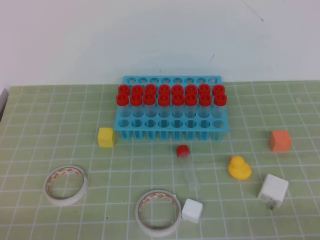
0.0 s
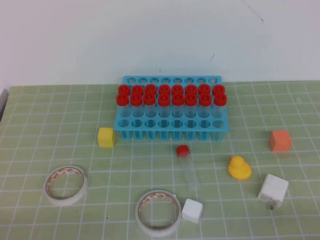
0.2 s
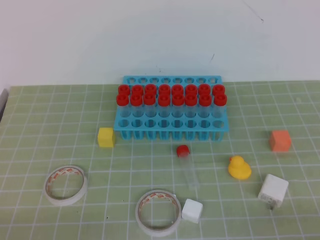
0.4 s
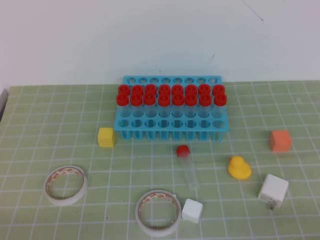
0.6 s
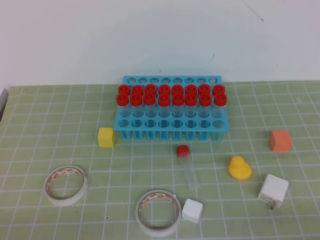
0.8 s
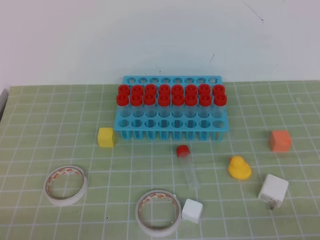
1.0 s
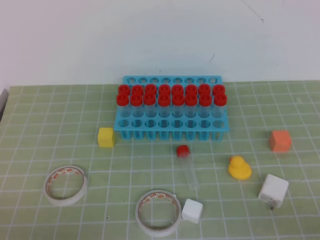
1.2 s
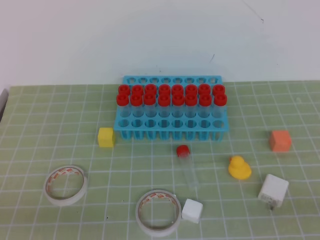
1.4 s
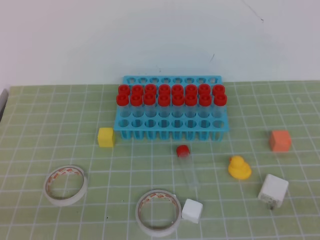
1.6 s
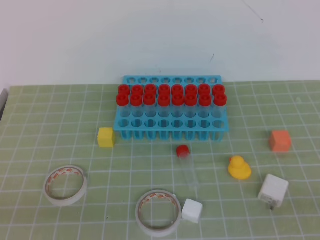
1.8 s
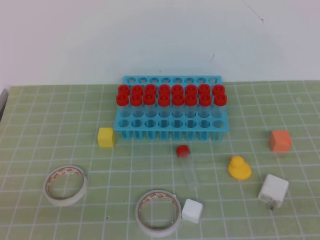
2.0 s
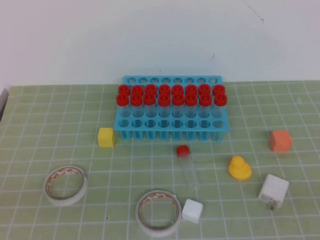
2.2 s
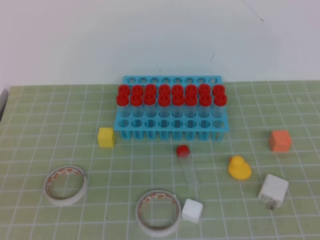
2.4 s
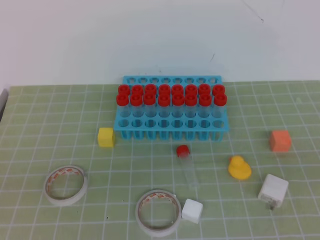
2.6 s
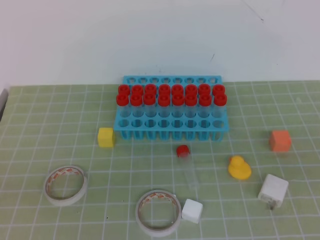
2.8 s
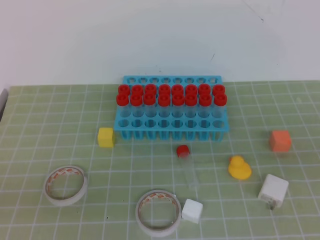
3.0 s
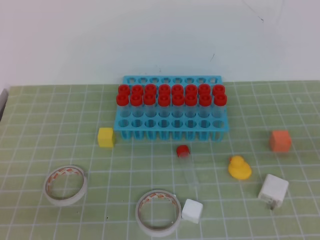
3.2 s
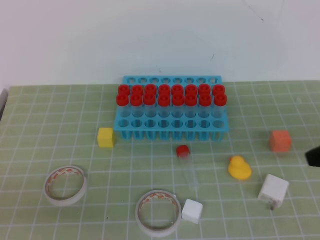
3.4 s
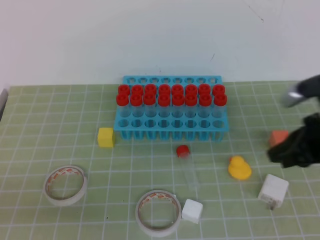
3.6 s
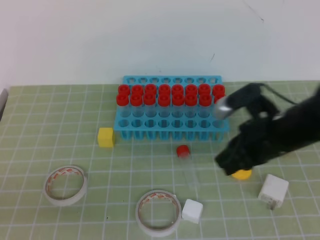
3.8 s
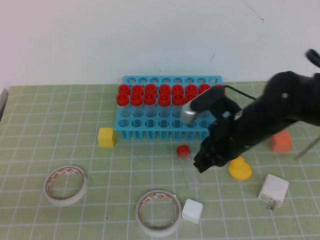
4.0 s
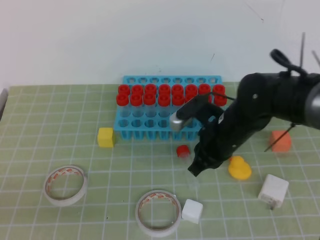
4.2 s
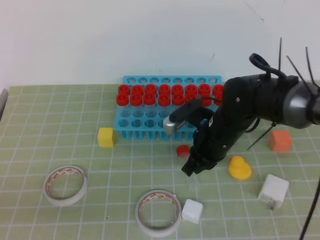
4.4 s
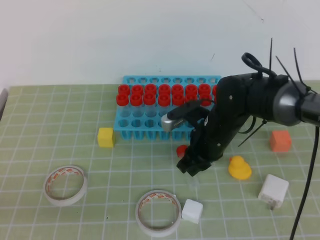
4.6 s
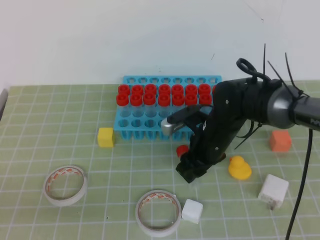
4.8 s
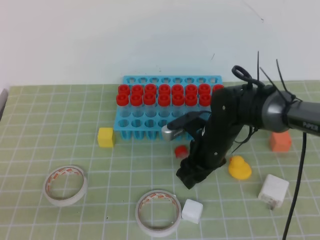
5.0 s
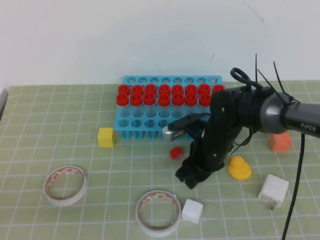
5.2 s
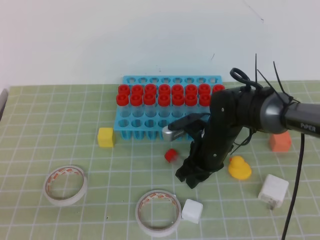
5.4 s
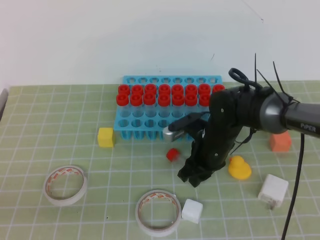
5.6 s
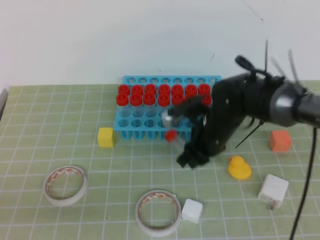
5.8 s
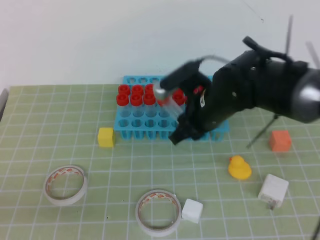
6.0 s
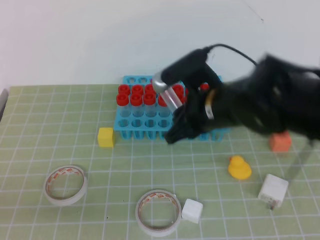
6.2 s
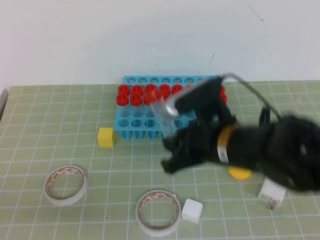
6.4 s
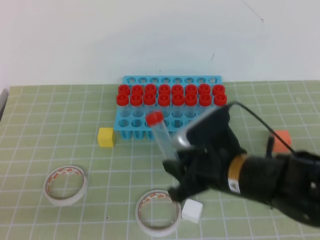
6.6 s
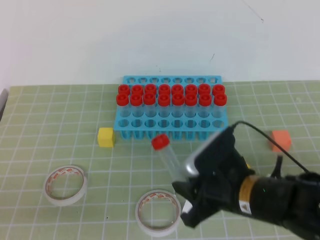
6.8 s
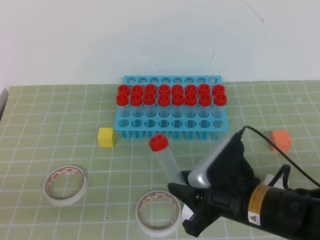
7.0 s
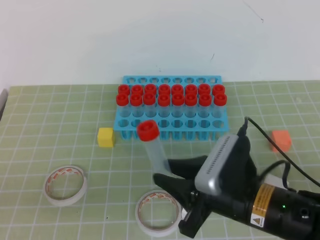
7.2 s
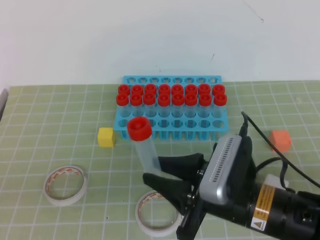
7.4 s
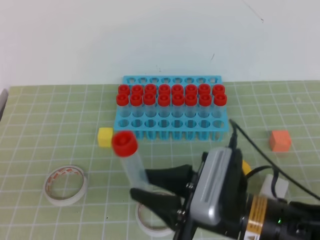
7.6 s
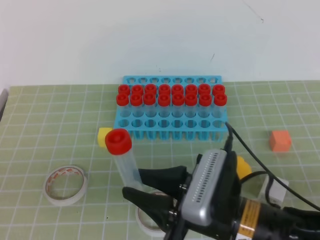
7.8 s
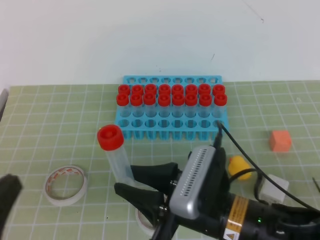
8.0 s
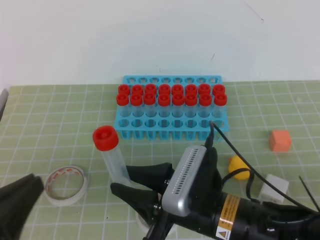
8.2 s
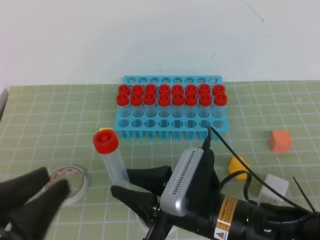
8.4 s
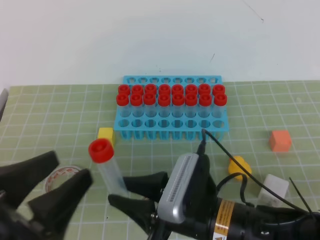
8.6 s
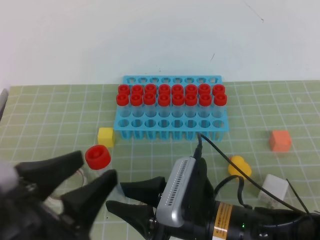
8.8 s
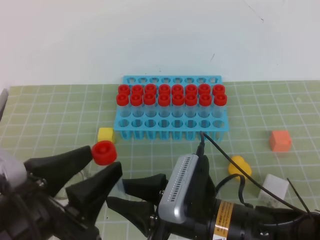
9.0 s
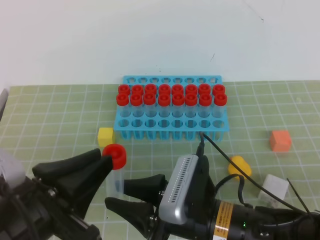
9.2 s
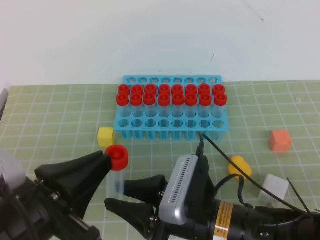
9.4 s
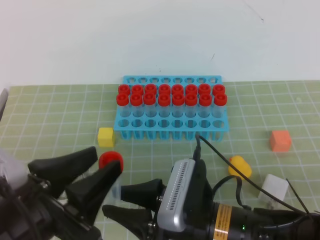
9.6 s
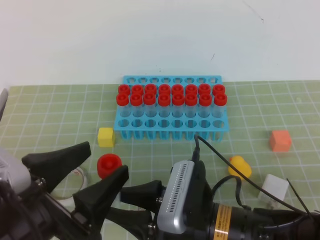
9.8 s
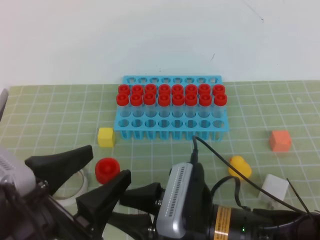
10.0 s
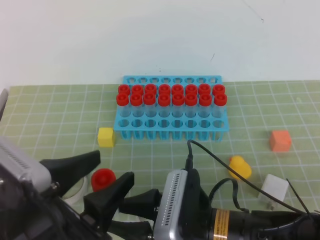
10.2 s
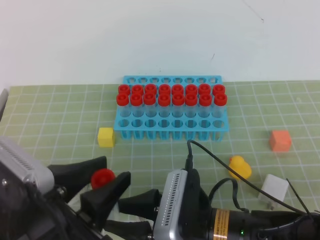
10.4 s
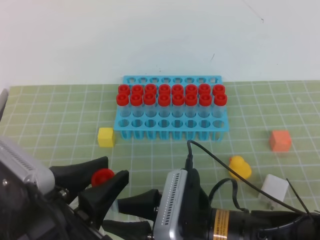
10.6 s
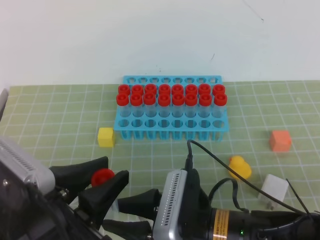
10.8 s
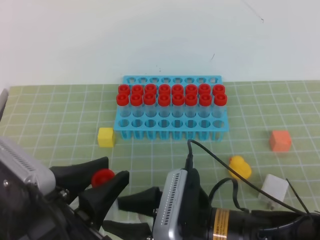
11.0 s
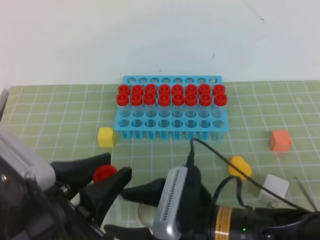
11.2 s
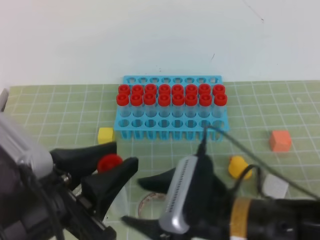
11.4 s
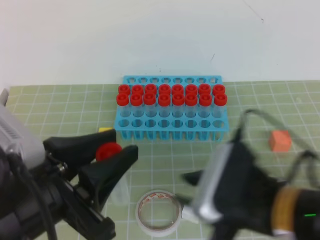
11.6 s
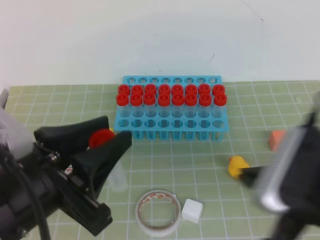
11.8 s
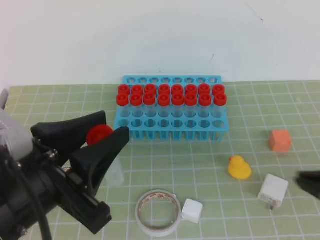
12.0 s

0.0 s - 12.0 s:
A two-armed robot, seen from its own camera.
3.0 s - 4.4 s: The right gripper is displaced forward, to the left and downward by about 35 cm.
4.4 s - 6.0 s: The right gripper opens.
6.0 s - 7.6 s: The right gripper travels backward by some 20 cm.
7.6 s - 9.0 s: The left gripper shifts approximately 10 cm to the right and forward, and opens up.
9.0 s - 10.4 s: The left gripper closes and opens again.
10.4 s - 12.0 s: The right gripper travels to the right and upward by roughly 20 cm, and closes its fingers; the left gripper is displaced upward by approximately 5 cm.

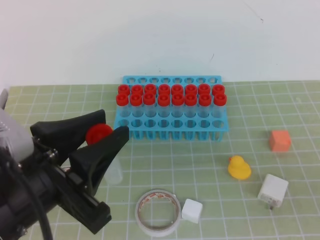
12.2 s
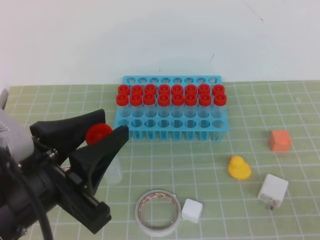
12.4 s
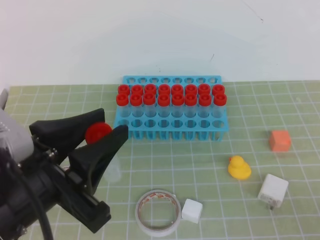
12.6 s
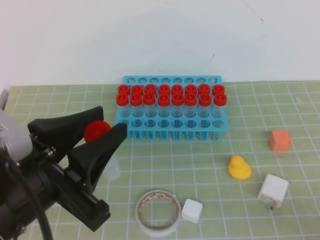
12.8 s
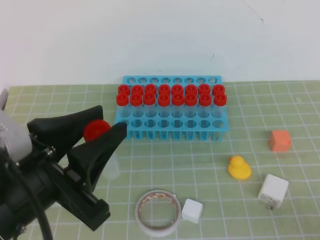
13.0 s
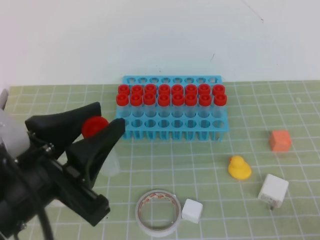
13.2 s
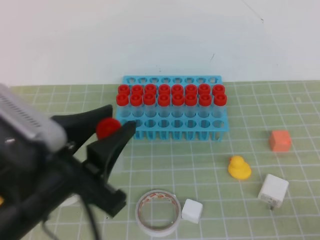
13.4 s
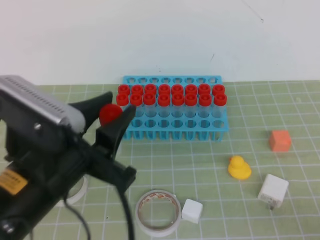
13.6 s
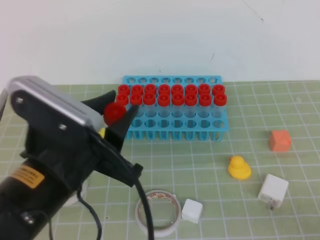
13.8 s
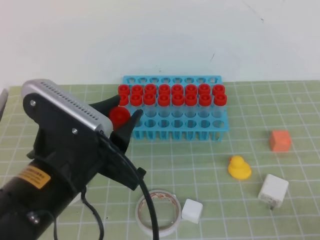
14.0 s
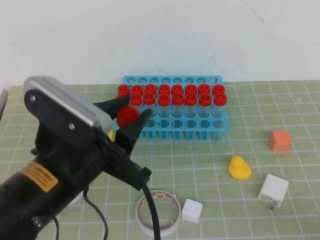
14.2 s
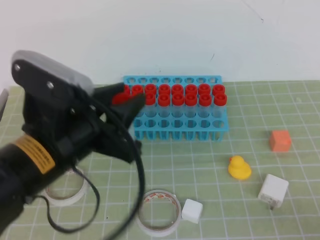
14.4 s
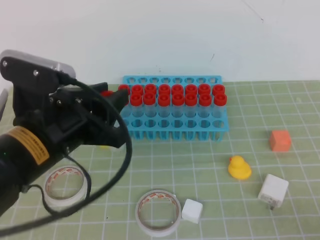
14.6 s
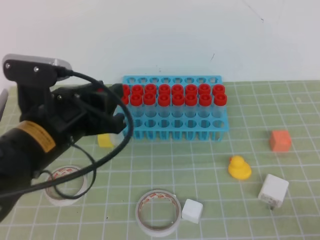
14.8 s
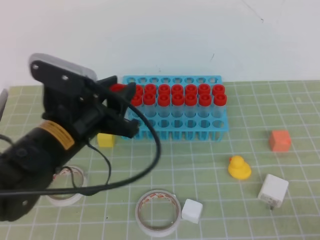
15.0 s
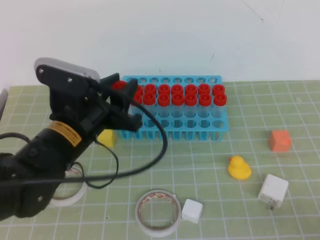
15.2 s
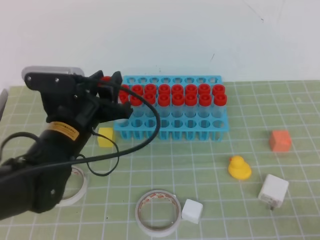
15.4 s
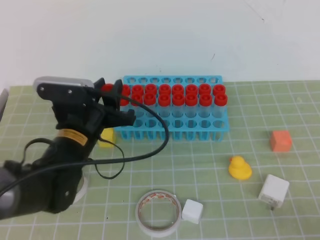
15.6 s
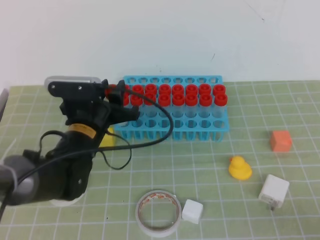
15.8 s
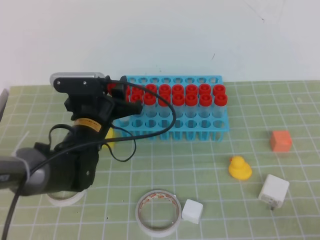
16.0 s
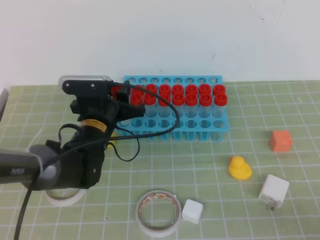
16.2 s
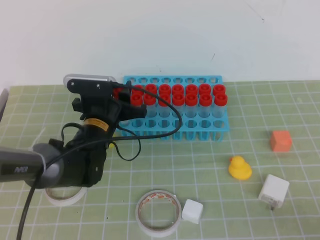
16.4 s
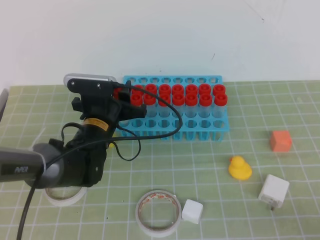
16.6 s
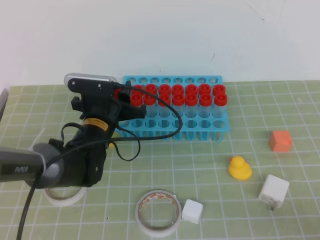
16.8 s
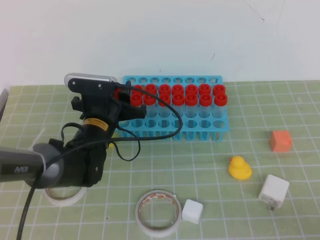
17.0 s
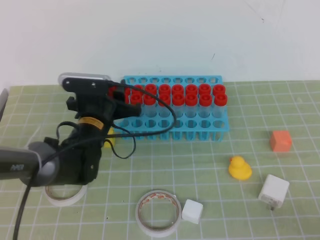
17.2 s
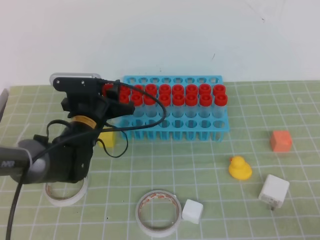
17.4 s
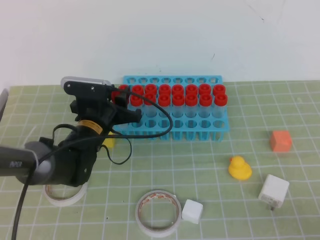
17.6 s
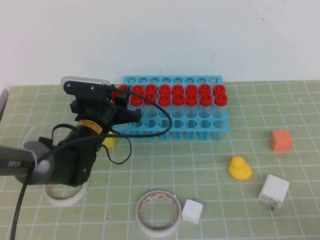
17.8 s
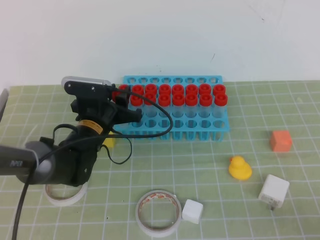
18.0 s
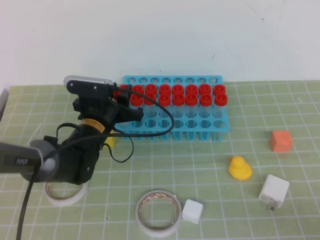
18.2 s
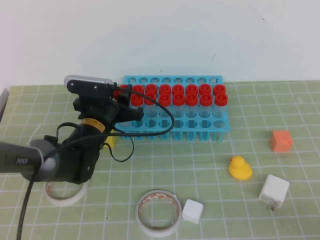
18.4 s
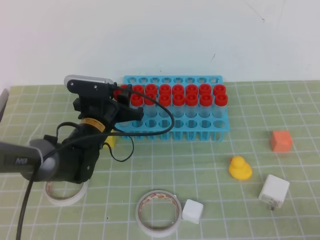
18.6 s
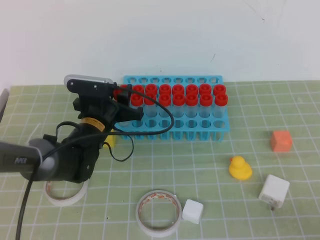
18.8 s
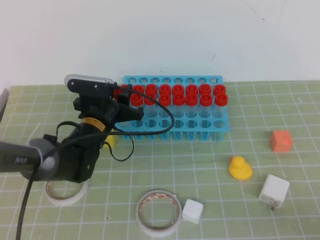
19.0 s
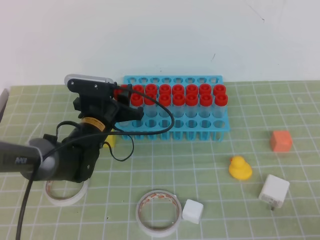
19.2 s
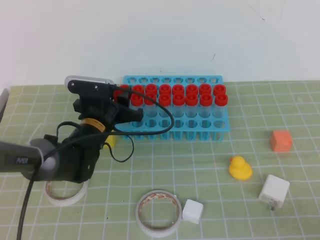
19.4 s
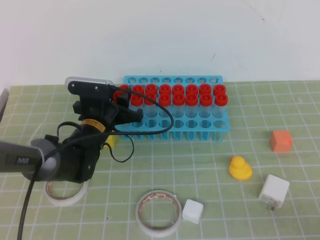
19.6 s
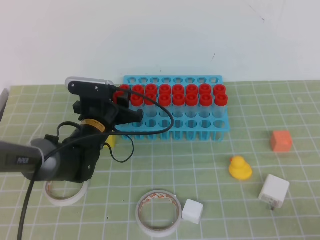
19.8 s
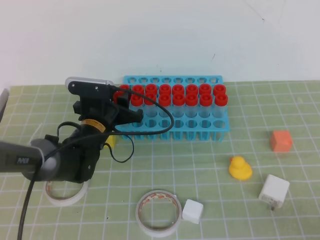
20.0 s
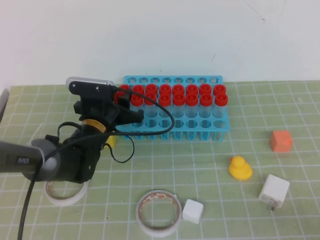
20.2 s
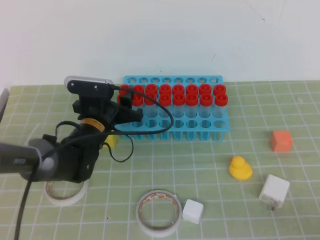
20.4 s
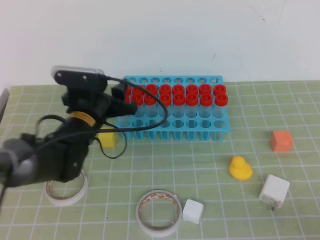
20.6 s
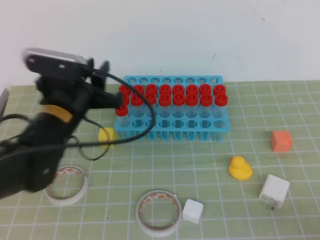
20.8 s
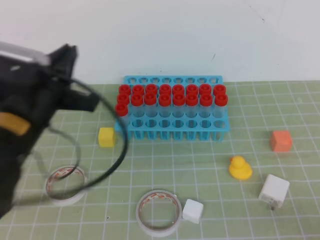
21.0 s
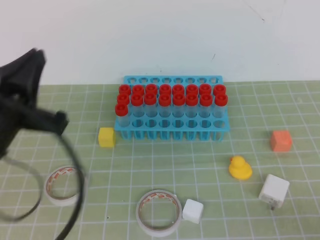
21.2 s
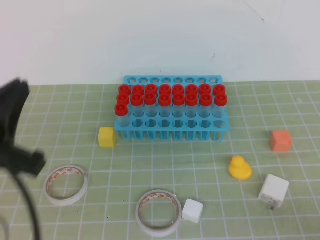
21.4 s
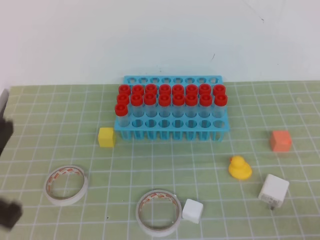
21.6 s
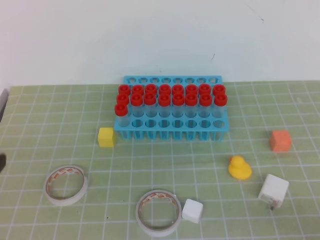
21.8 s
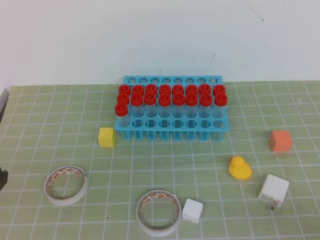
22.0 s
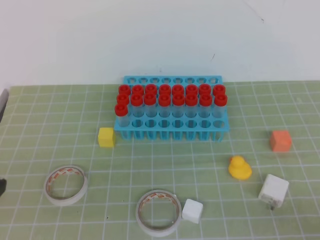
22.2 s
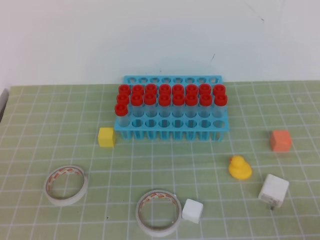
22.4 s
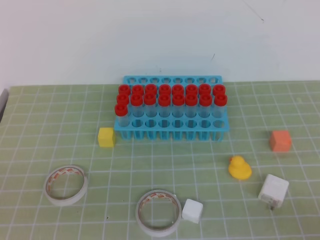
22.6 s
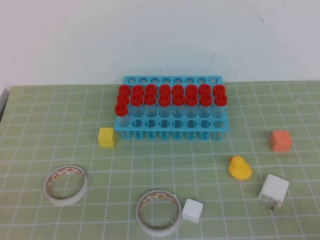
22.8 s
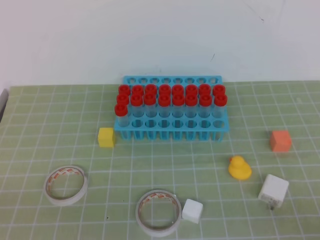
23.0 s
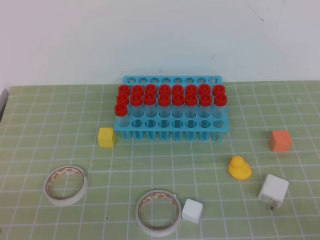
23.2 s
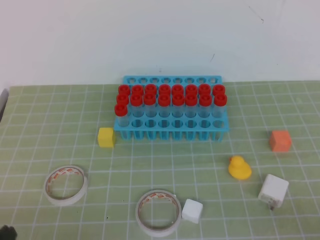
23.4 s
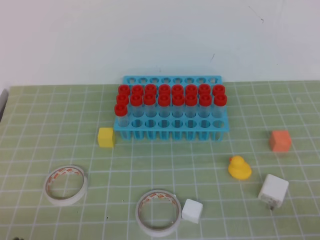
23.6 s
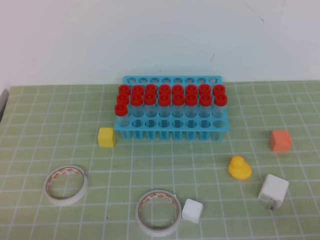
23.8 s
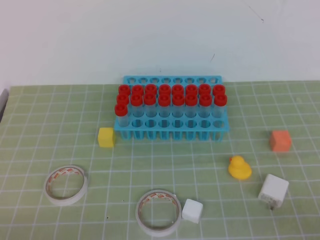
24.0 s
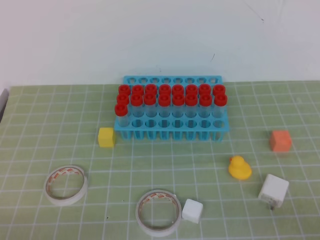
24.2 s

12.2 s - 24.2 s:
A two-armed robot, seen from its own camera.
12.2 s - 13.8 s: The right gripper travels downward by some 5 cm. The left gripper shifts by roughly 5 cm.
13.8 s - 15.2 s: The left gripper shifts about 10 cm forward.
15.2 s - 16.6 s: The left gripper travels forward and downward by about 15 cm.
16.6 s - 18.2 s: The grippers stay close to where they were, moving slightly.
18.2 s - 19.8 s: The two grippers keep their place.
19.8 s - 21.2 s: The left gripper heads backward and upward, covering some 25 cm, and closes up.
21.2 s - 22.6 s: The left gripper shifts approximately 15 cm backward.
